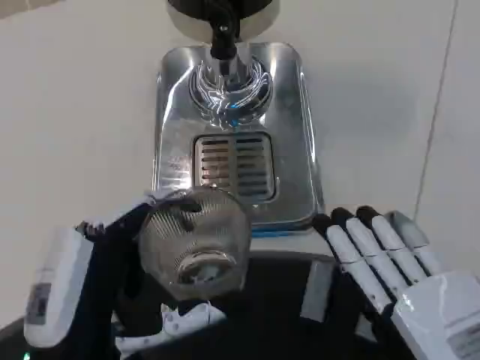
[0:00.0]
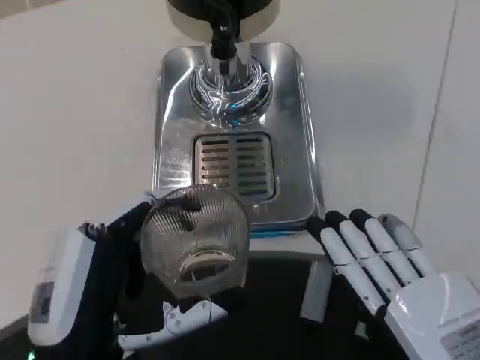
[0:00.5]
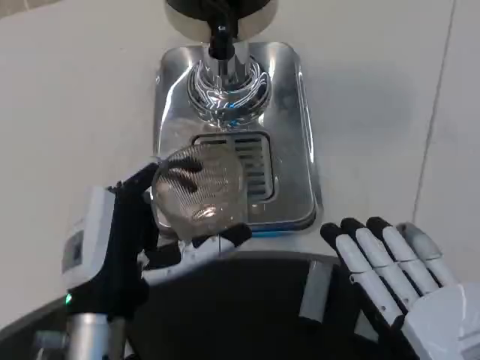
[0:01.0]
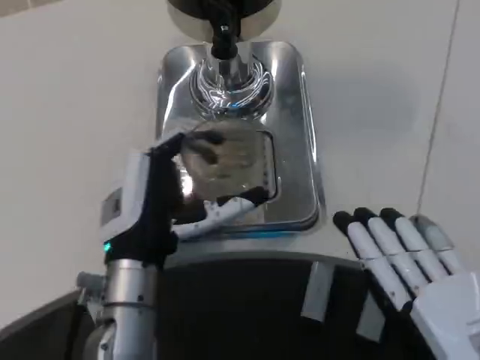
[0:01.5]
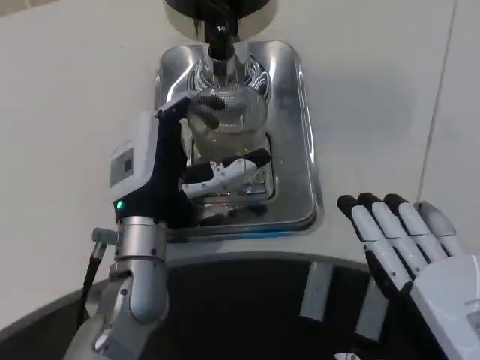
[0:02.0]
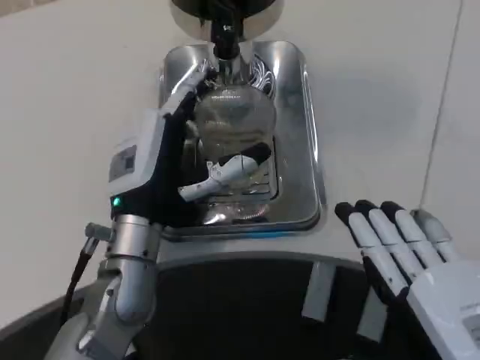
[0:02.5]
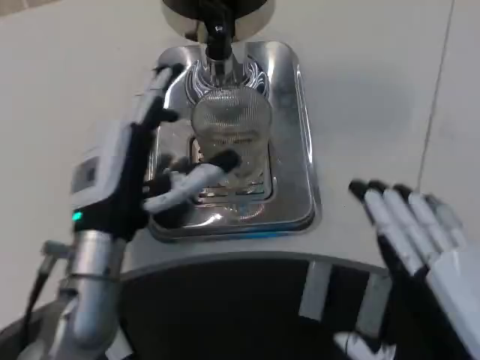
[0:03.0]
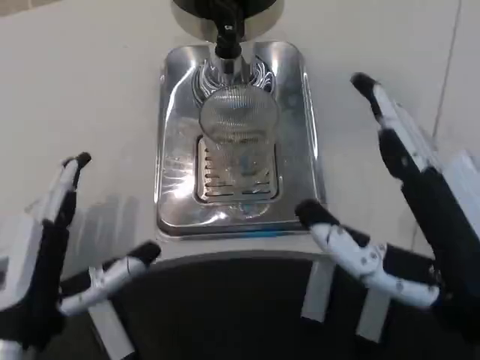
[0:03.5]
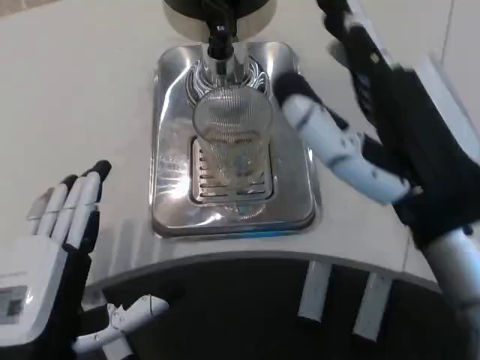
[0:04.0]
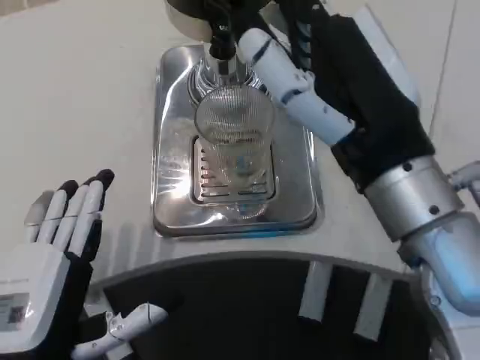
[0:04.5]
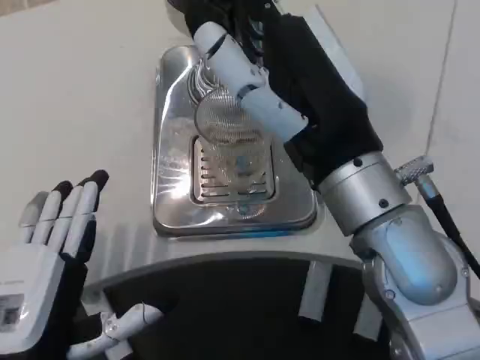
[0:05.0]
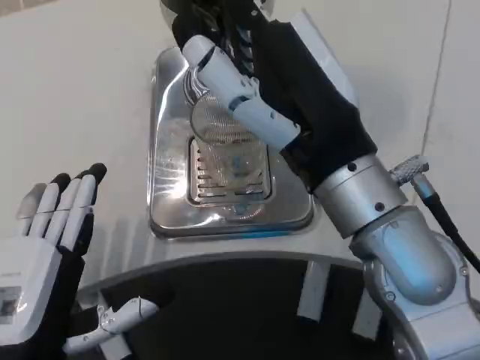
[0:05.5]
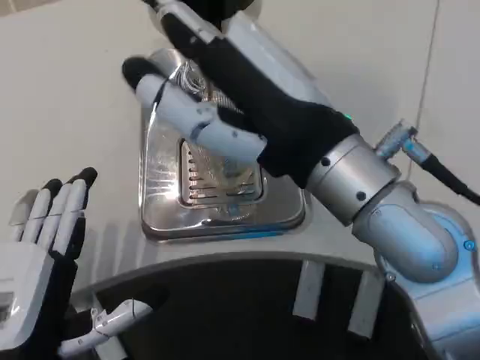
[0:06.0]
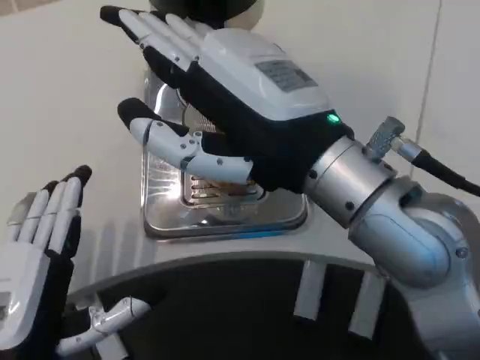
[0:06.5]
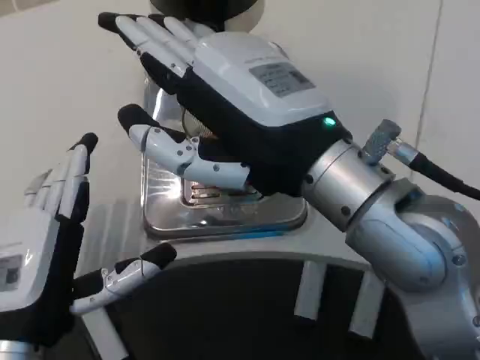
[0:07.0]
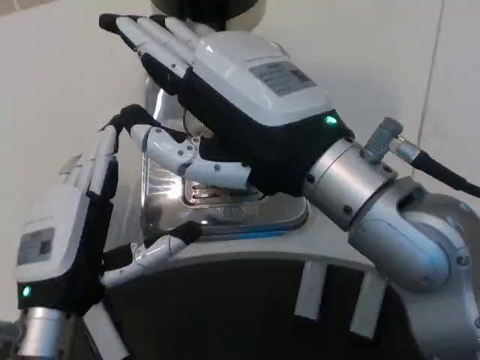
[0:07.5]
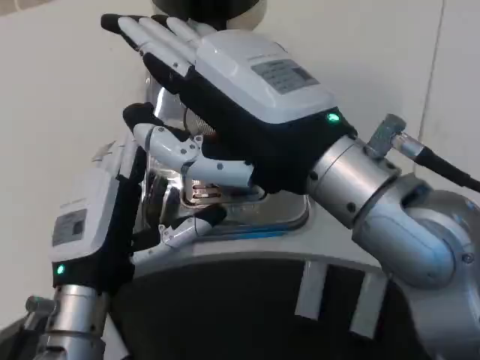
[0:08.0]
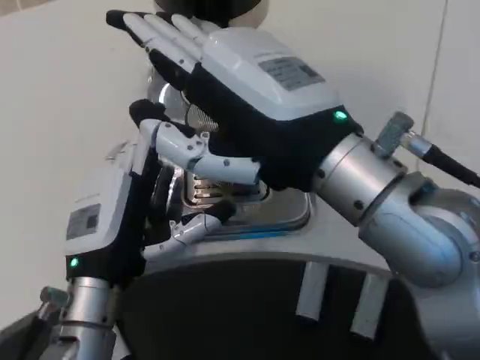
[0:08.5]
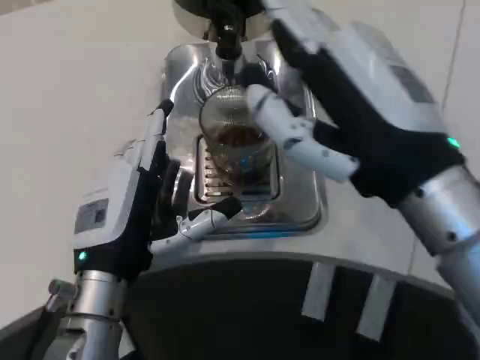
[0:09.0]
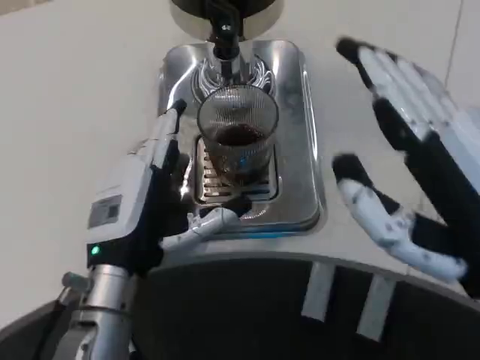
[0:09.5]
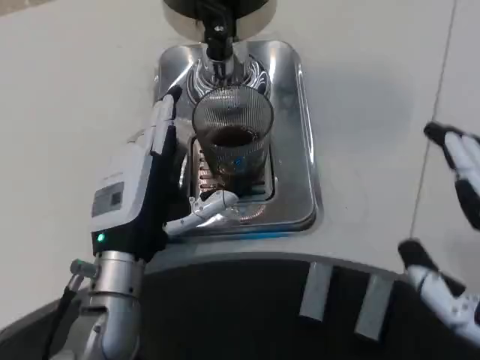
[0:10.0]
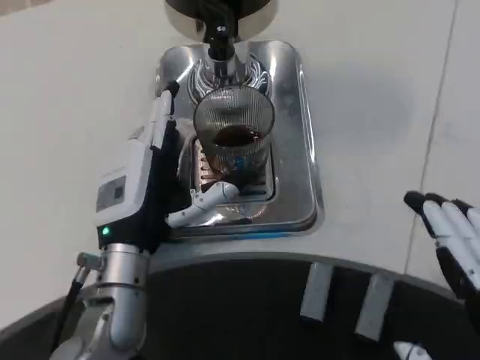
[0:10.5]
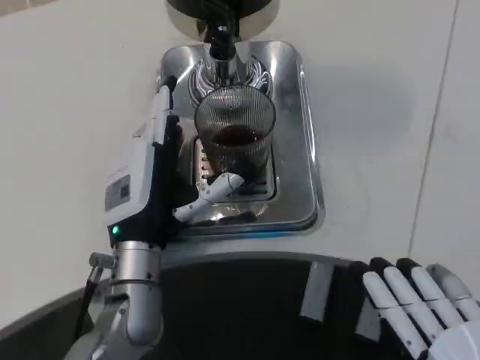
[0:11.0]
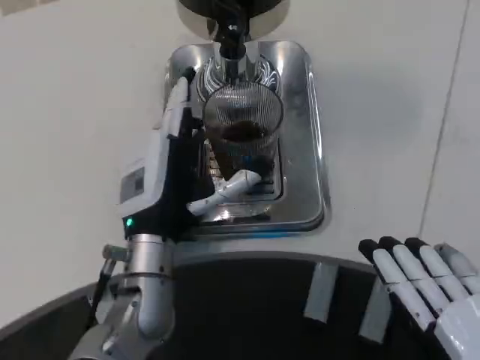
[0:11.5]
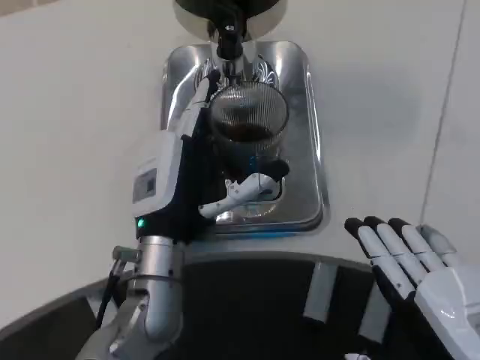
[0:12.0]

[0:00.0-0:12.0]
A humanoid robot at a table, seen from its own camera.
Task of the whole recording: Grasp the cup under the faucet to collect the drink, then remove the cup.
0:00.0 to 0:02.0: The left hand goes about 15 cm forward.
0:02.0 to 0:04.0: The left hand travels backward and to the left by about 20 cm; the right hand goes some 10 cm forward and upward.
0:04.0 to 0:06.0: The right hand travels forward by some 5 cm.
0:06.0 to 0:08.0: The left hand goes some 10 cm forward.
0:08.0 to 0:10.0: The right hand moves backward, to the right and downward, approximately 20 cm.

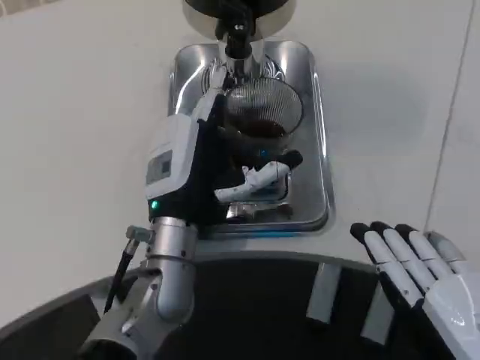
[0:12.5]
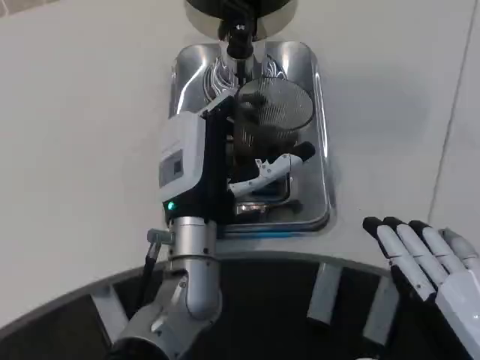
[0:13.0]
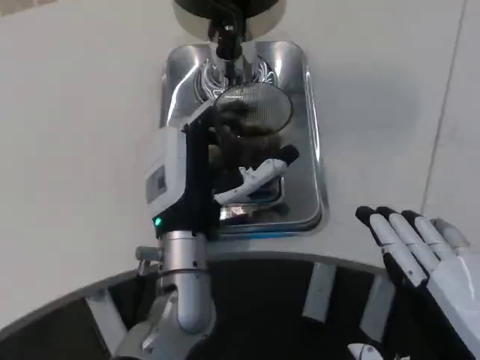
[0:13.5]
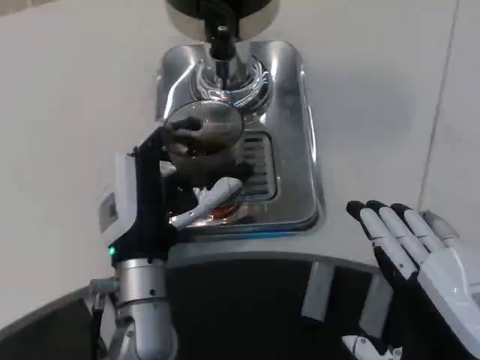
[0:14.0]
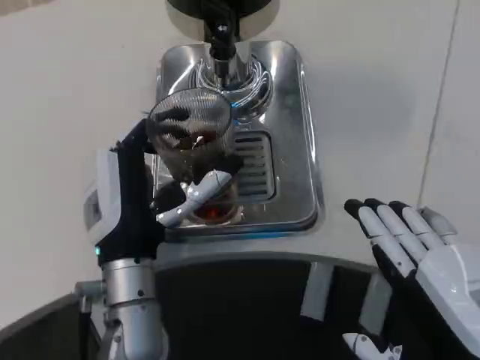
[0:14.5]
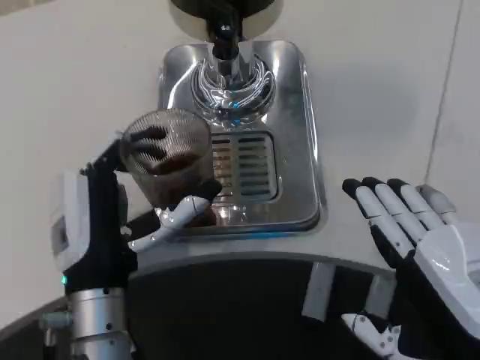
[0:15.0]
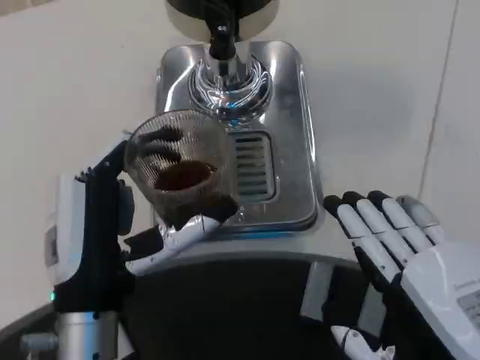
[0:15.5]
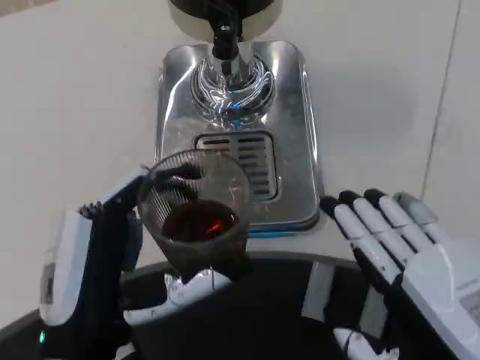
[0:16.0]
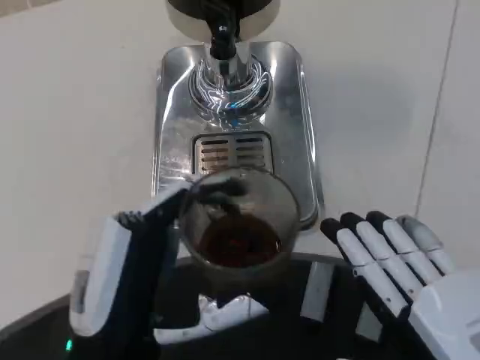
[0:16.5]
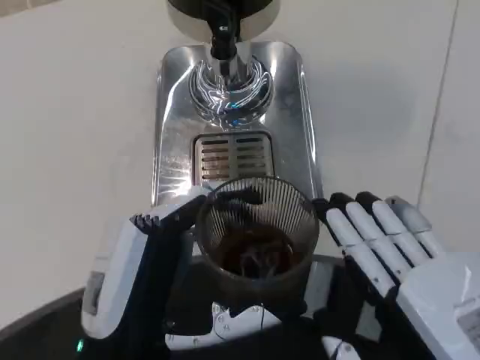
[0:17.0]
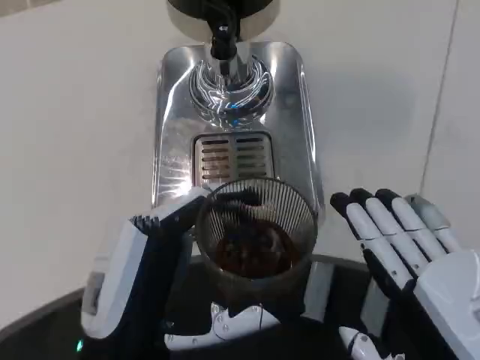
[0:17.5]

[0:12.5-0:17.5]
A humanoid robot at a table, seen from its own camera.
Task of the whole recording: Grasp the cup under the faucet to collect the drink, then remove the cup.
0:12.5 to 0:15.0: The left hand is displaced backward by roughly 5 cm.
0:15.0 to 0:17.5: The left hand moves backward, about 10 cm.

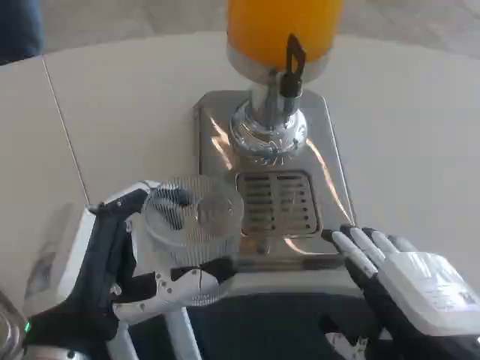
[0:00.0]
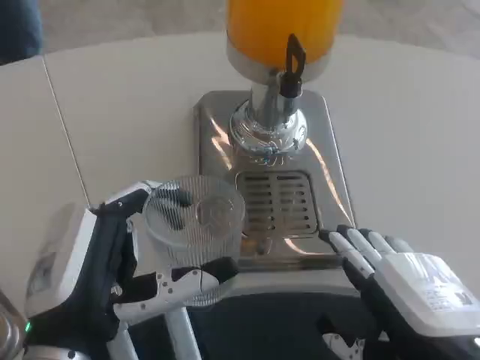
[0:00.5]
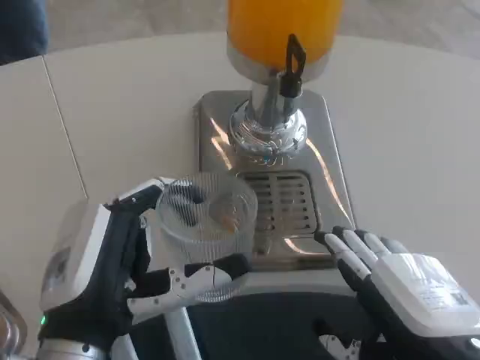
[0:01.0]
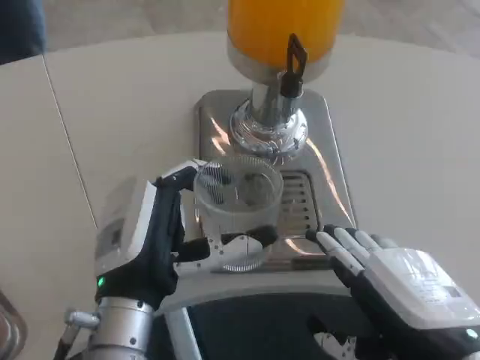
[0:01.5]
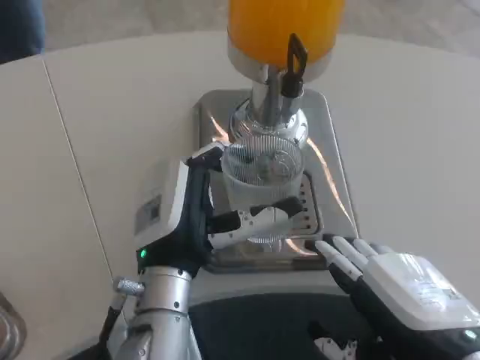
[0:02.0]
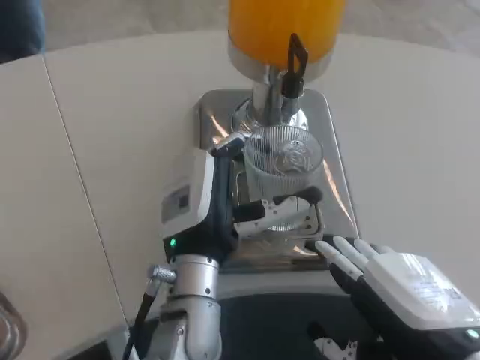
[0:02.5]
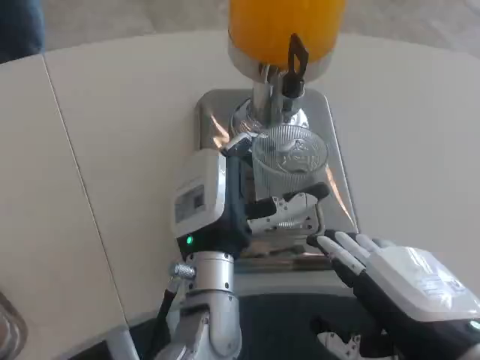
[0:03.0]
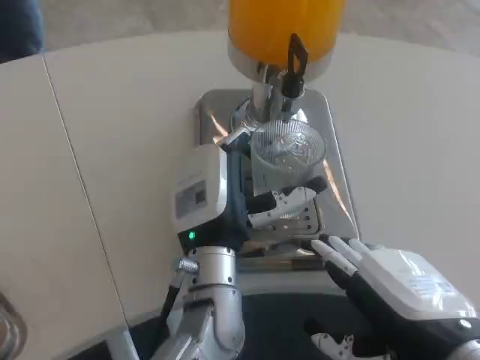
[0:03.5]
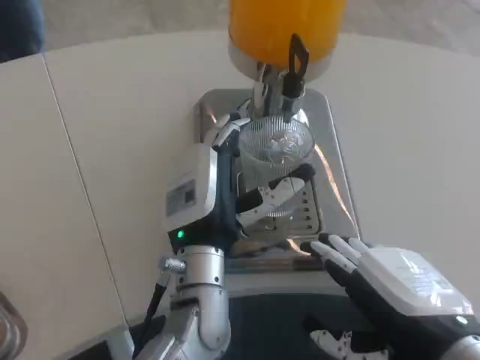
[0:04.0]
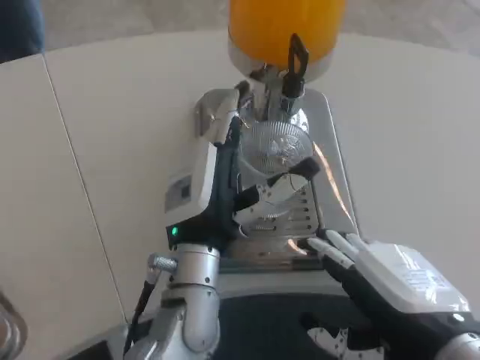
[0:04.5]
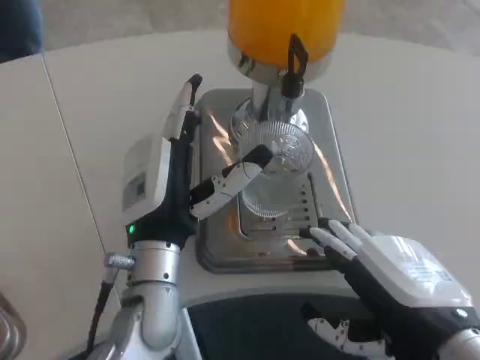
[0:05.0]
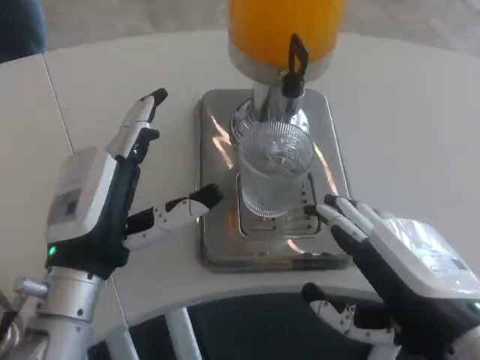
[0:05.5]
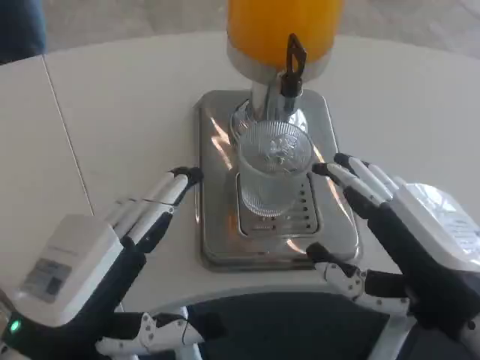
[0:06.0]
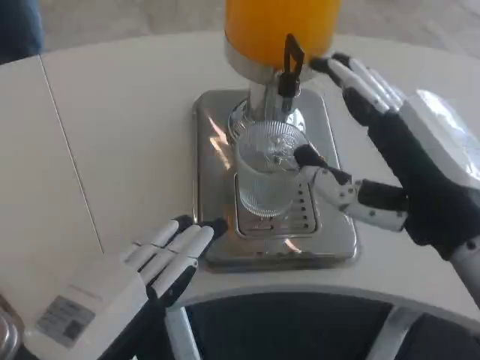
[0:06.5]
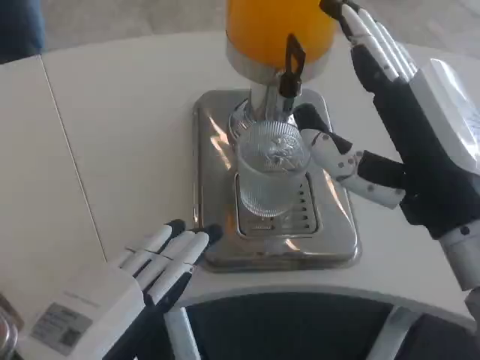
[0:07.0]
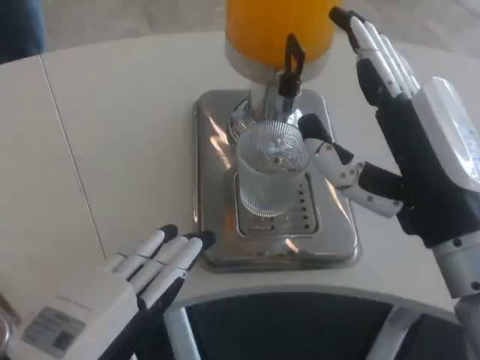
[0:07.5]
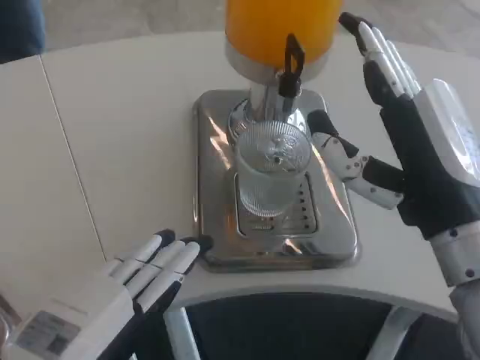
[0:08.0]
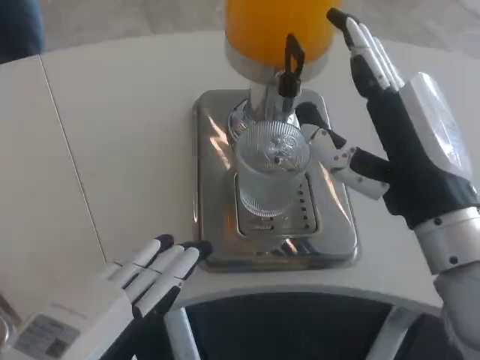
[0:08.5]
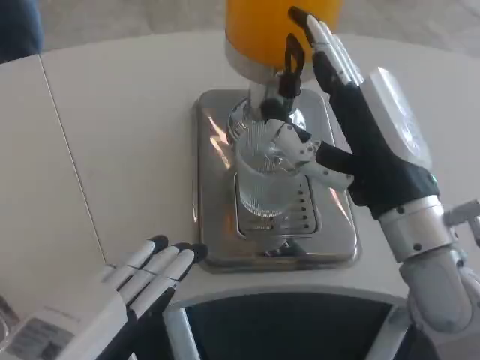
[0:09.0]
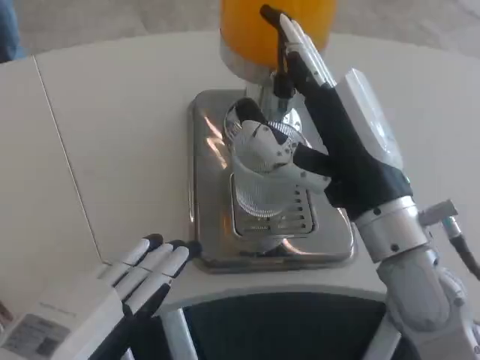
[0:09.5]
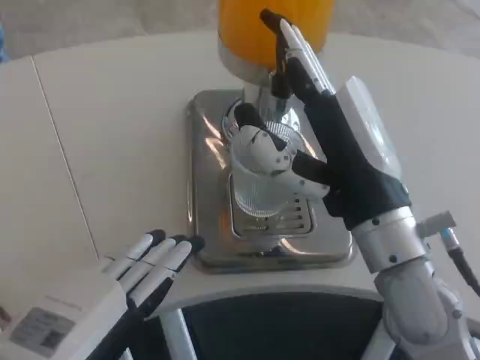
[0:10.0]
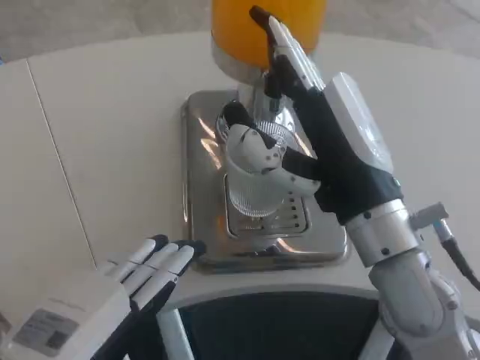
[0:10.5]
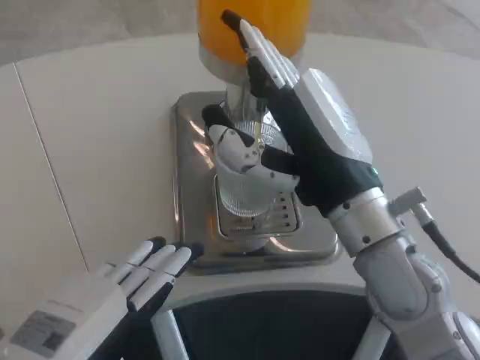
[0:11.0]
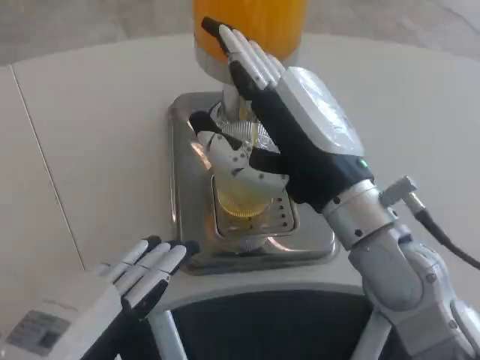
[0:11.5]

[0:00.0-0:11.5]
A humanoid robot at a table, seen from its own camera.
Task of the whole recording: Grasp the cup under the faucet to collect the drink, then remove the cup.
0:00.0 to 0:02.0: The left hand goes roughly 10 cm forward and to the right.
0:02.0 to 0:04.0: The left hand changes place by some 5 cm.
0:04.0 to 0:06.0: The left hand is displaced to the left and backward by approximately 20 cm.
0:06.0 to 0:07.5: The right hand changes place by some 5 cm.
0:07.5 to 0:09.5: The right hand changes place by roughly 5 cm.
